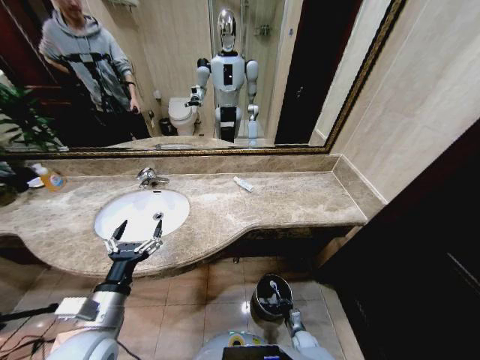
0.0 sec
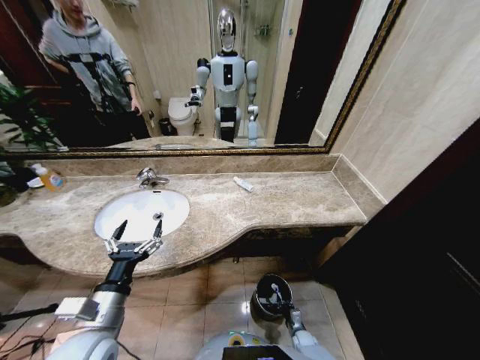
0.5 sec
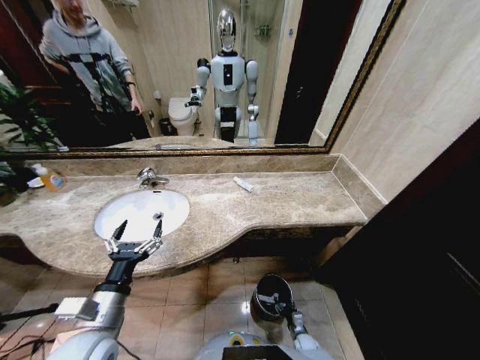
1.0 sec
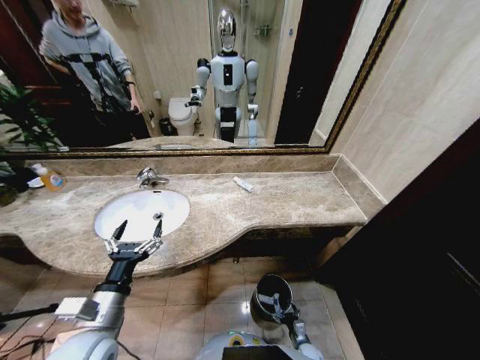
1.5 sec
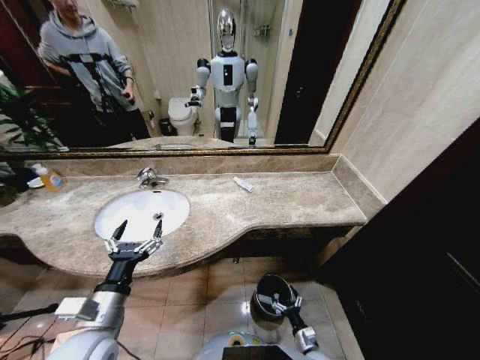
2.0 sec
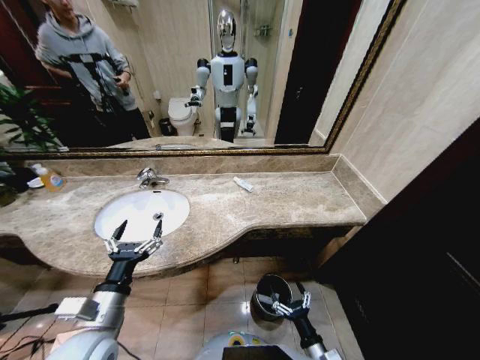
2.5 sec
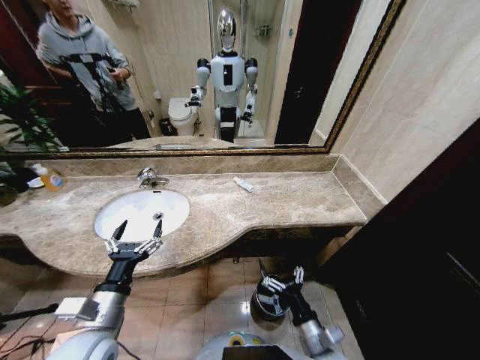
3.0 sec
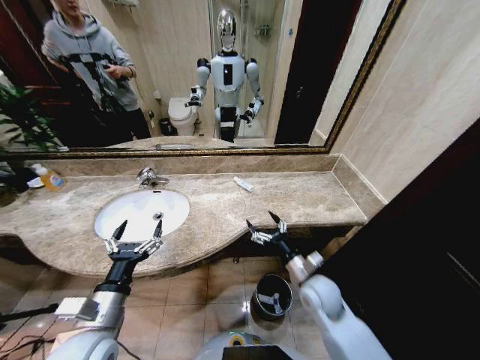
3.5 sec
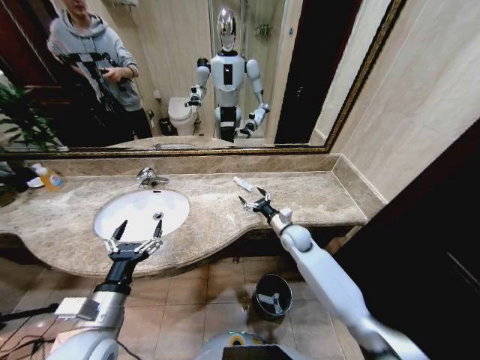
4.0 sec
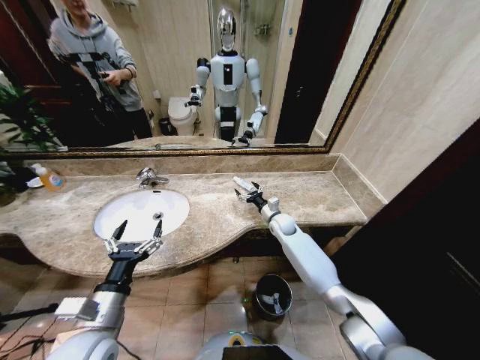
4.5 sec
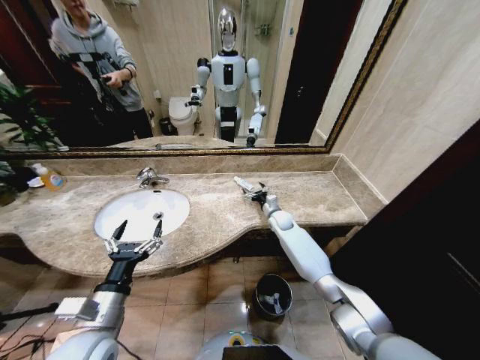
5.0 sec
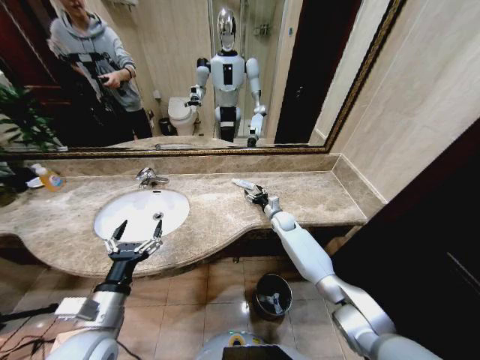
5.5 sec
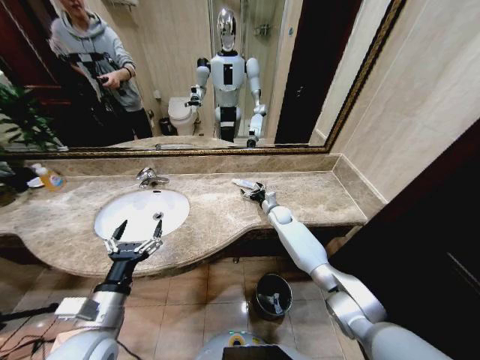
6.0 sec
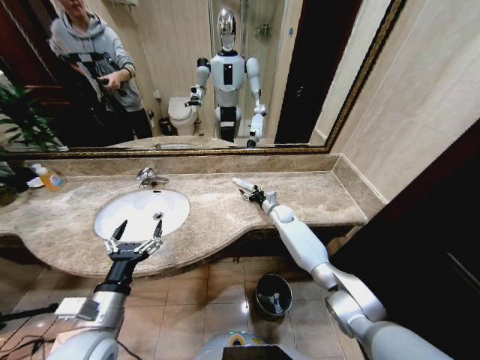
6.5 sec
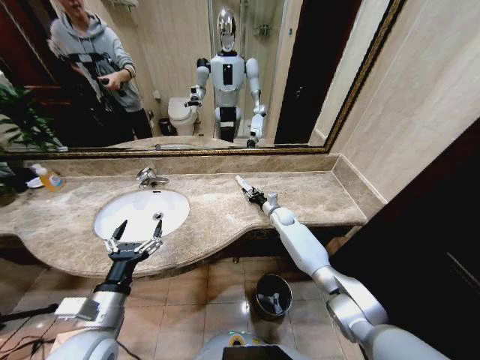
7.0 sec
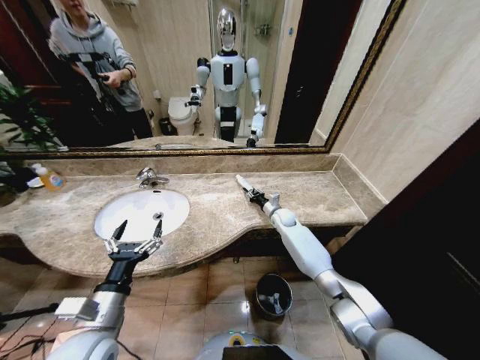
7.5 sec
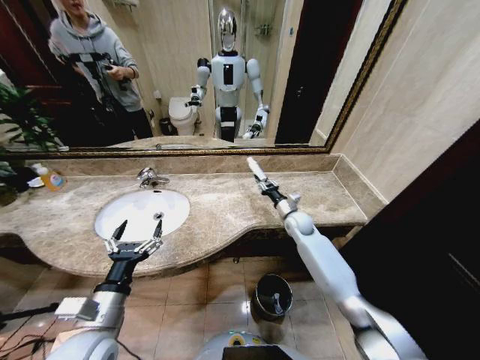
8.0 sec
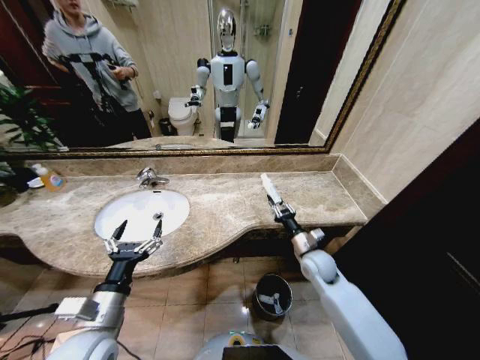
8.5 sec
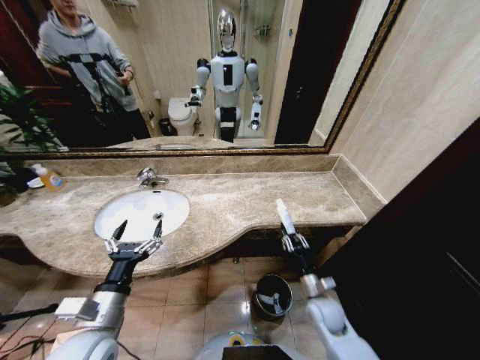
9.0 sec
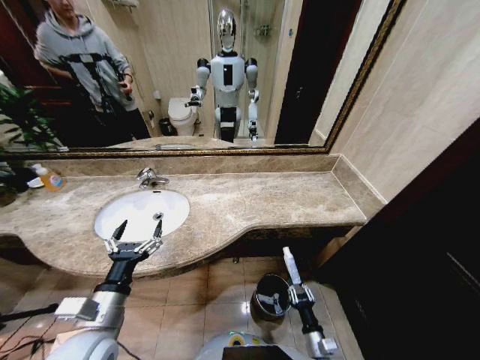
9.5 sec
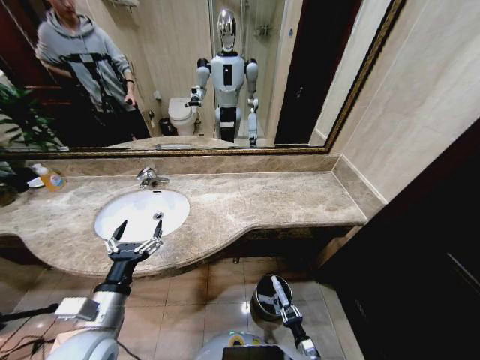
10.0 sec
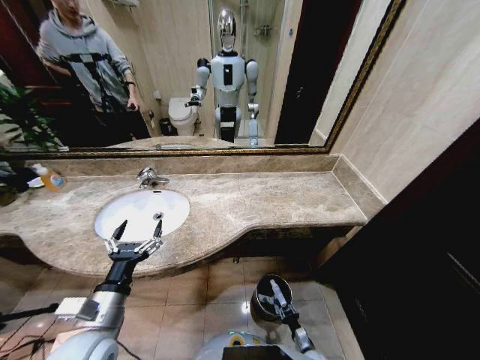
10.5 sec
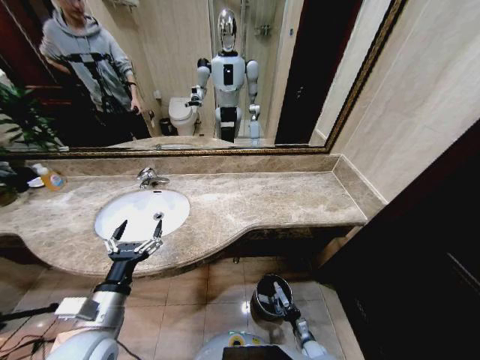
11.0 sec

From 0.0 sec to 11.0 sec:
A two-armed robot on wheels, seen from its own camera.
Task of the whole recording: Pick up the trash from the sink and place it in the trash bin.
From 0.0 sec to 2.0 sec: The right gripper travels upward and backward by approximately 10 cm, and opens up.
From 2.0 sec to 3.5 sec: The right gripper moves upward and forward, approximately 35 cm.
From 3.5 sec to 5.5 sec: The right gripper moves forward, some 30 cm.
From 5.5 sec to 7.5 sec: The right gripper closes.
From 7.5 sec to 9.0 sec: The right gripper heads backward, covering approximately 30 cm.
From 9.0 sec to 11.0 sec: The right gripper goes roughly 30 cm downward.

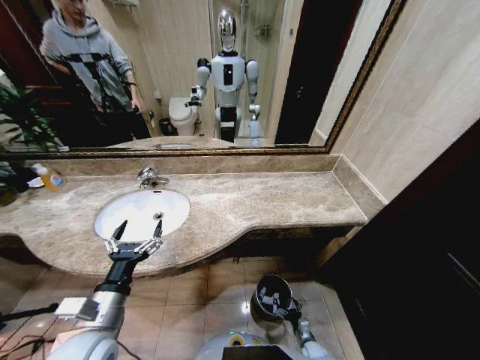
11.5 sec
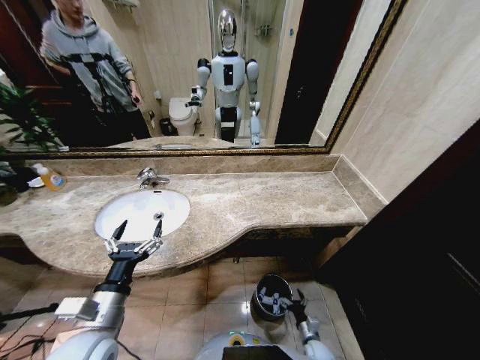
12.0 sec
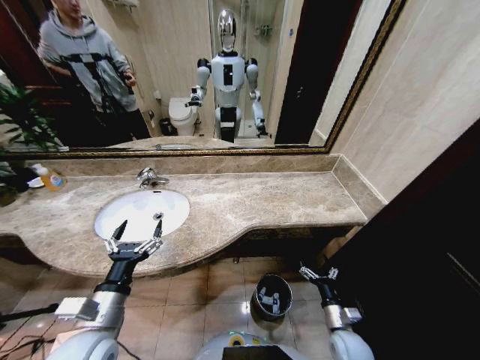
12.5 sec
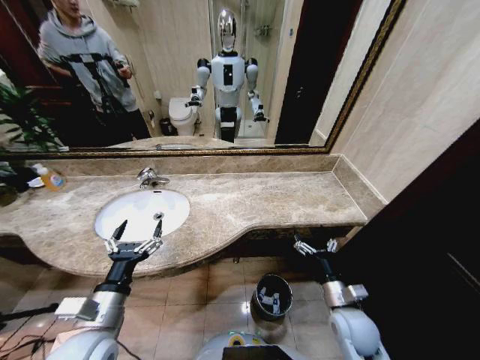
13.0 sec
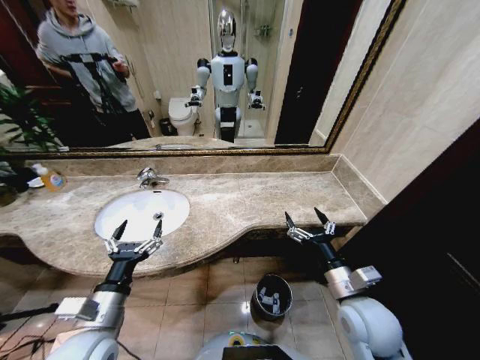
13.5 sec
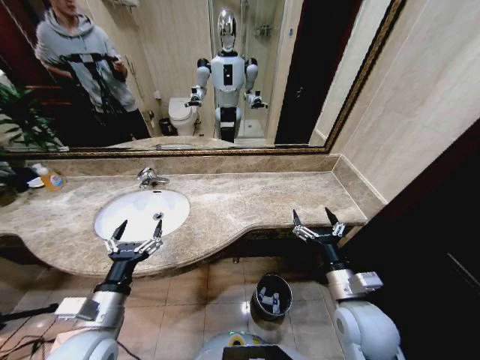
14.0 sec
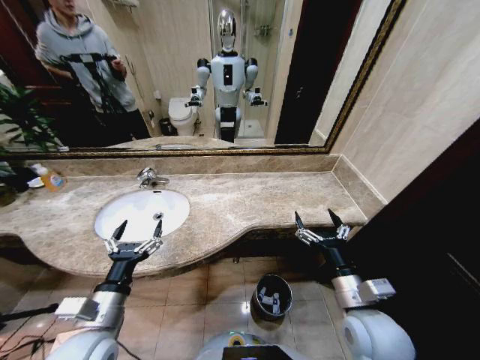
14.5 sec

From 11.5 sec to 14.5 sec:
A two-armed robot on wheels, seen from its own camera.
Task of the whole recording: Pick up the trash from the sink and place it in the trash bin.
From 11.5 sec to 13.0 sec: The right gripper heads upward, covering about 35 cm.
From 13.0 sec to 14.5 sec: The right gripper shifts roughly 10 cm upward.

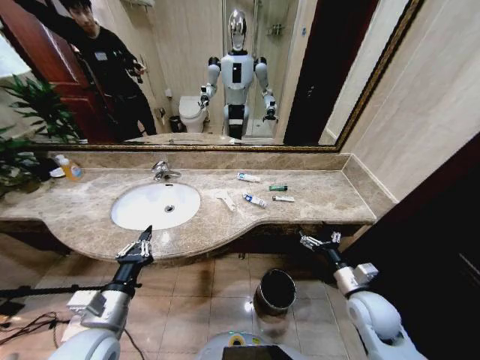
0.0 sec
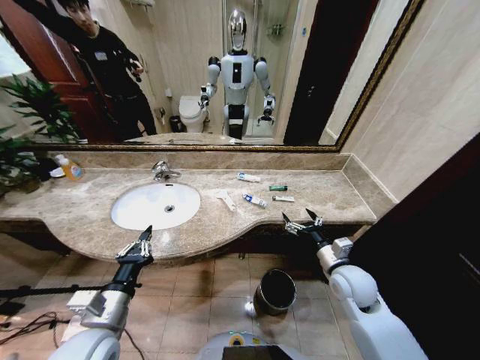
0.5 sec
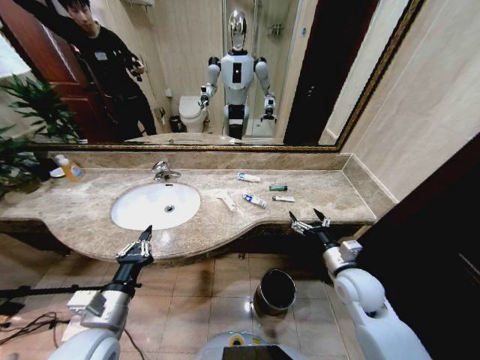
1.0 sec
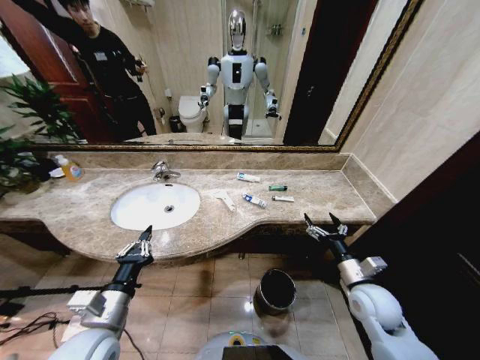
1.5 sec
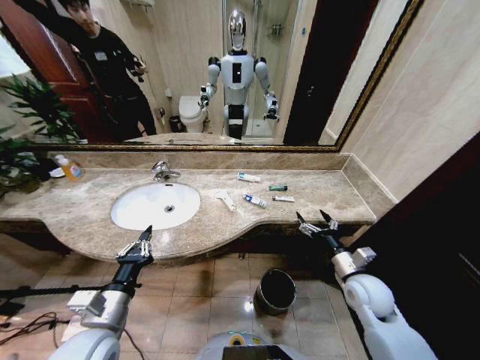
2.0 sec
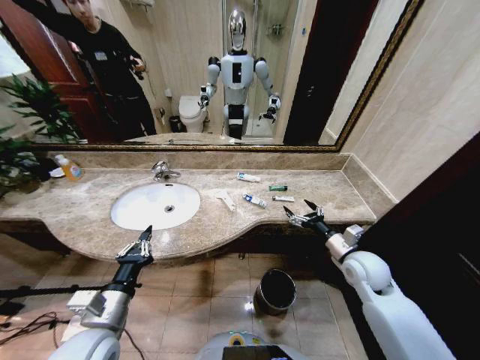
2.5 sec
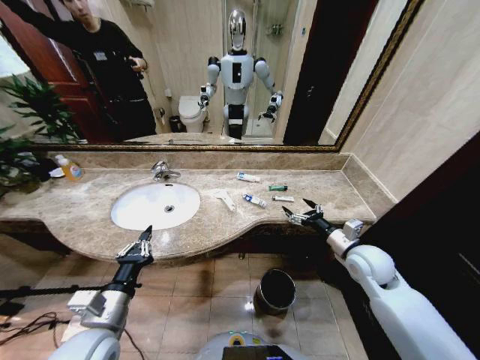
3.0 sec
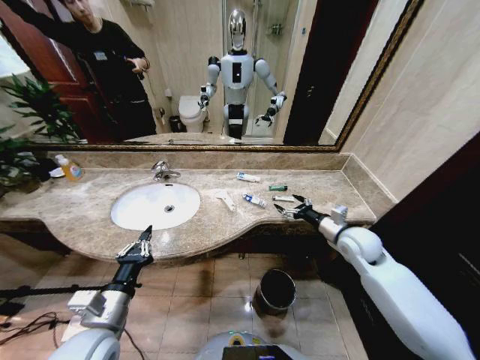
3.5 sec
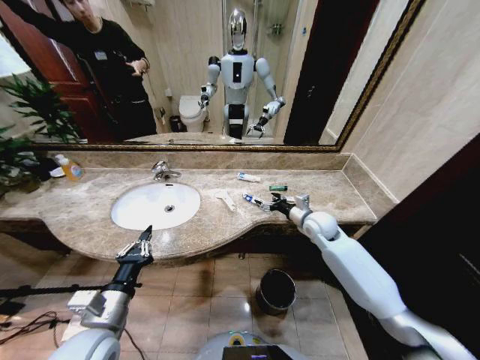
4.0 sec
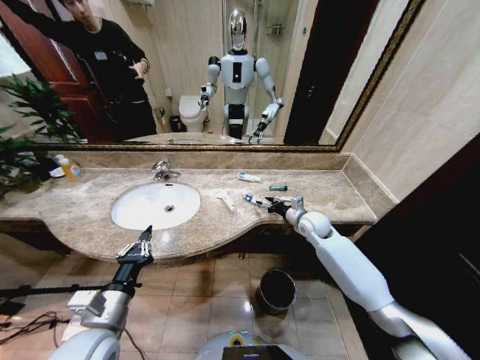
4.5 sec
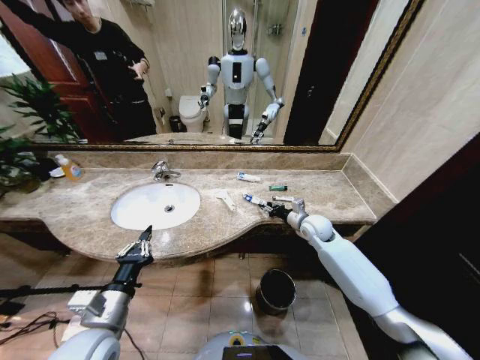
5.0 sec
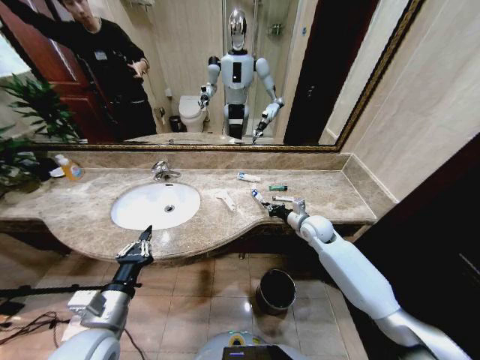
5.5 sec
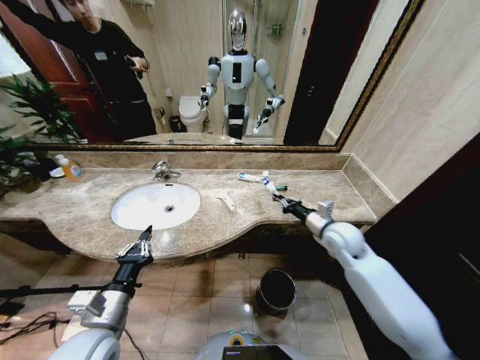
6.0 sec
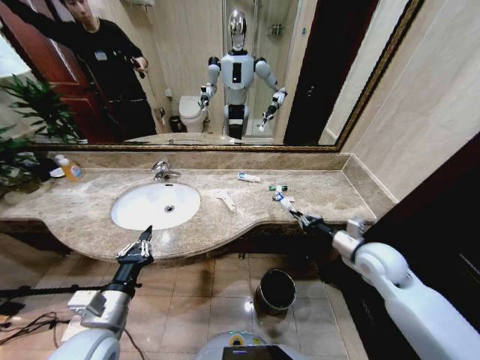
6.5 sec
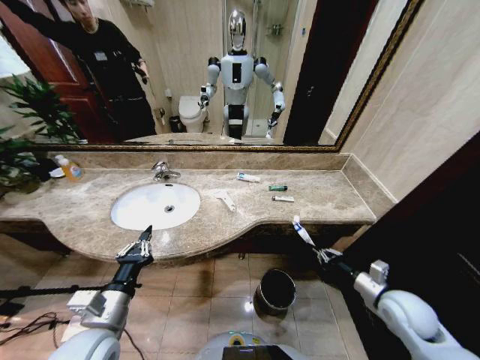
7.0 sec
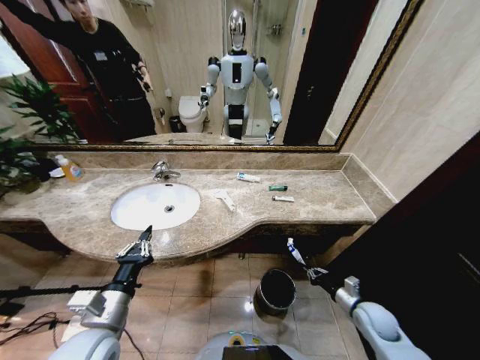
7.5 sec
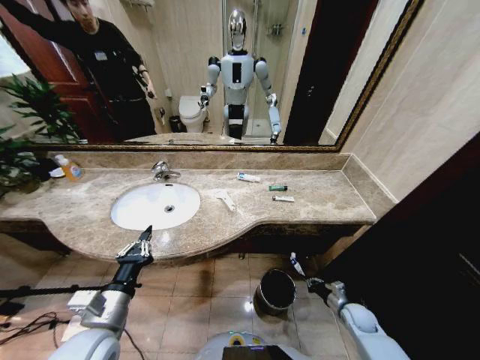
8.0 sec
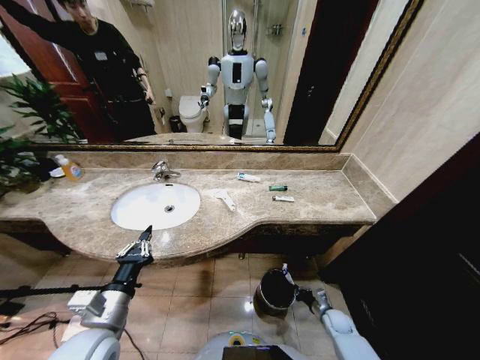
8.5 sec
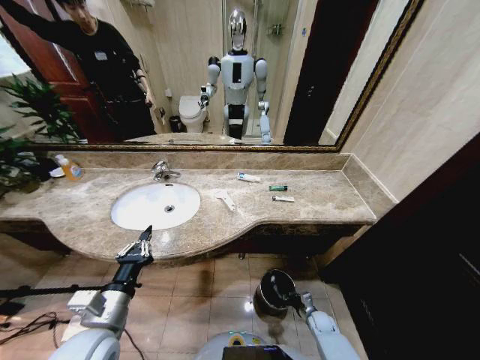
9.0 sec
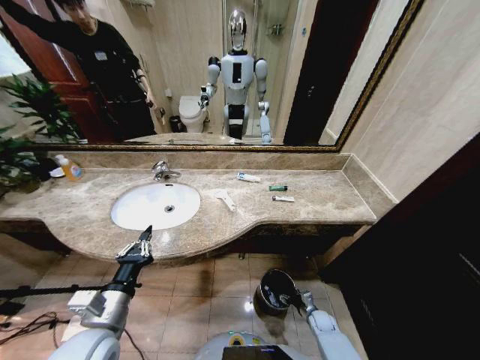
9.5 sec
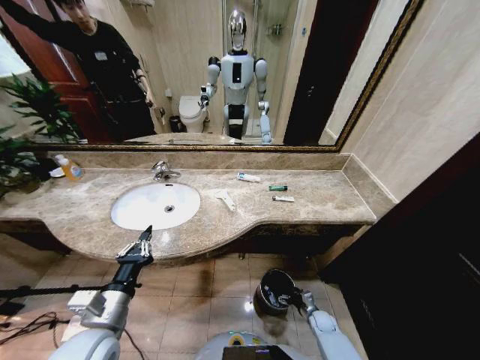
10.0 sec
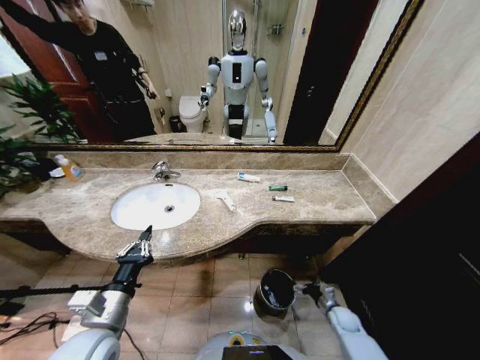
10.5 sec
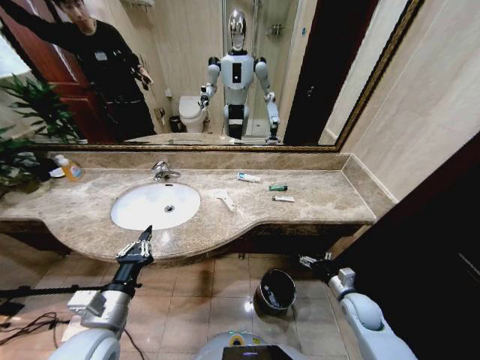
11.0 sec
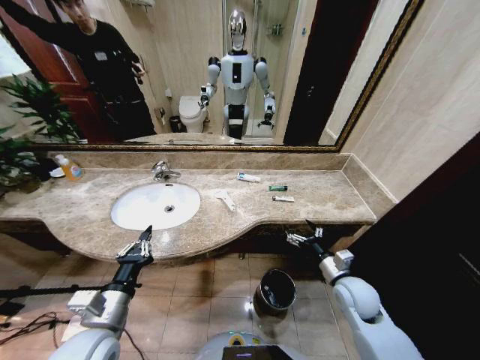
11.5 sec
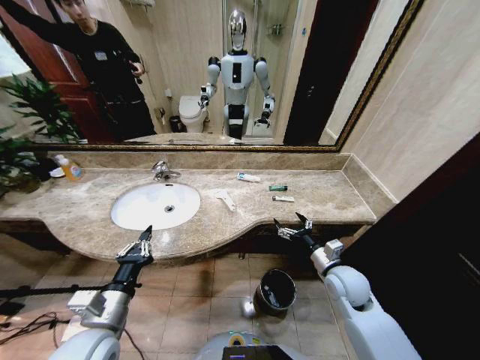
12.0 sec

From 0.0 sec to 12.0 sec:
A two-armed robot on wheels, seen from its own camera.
Task of the whole recording: Pick up the trash from the sink and place it in the trash bin.
From 2.0 sec to 4.0 sec: The right gripper travels forward by about 20 cm.
From 4.0 sec to 6.0 sec: The right gripper goes roughly 5 cm backward, and closes up.
From 6.0 sec to 8.0 sec: The right gripper travels downward and backward by about 35 cm.
From 8.0 sec to 10.0 sec: The right gripper goes roughly 15 cm downward and to the left, and opens.
From 10.0 sec to 12.0 sec: The right gripper shifts some 35 cm upward.
